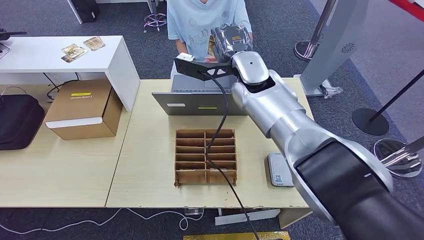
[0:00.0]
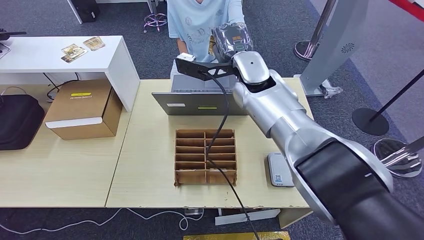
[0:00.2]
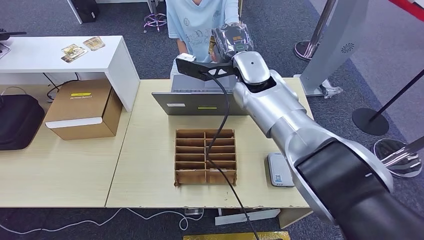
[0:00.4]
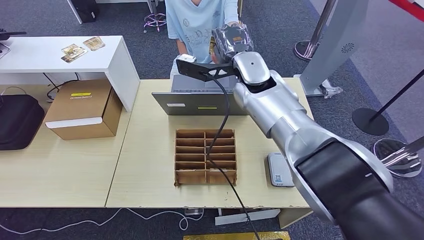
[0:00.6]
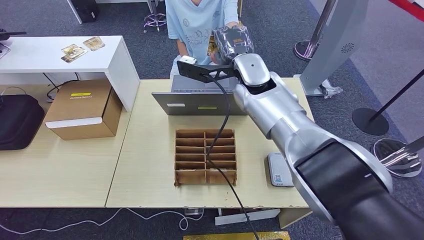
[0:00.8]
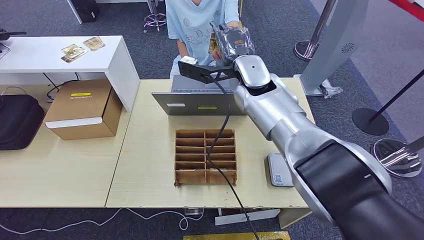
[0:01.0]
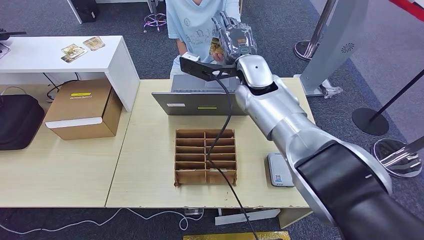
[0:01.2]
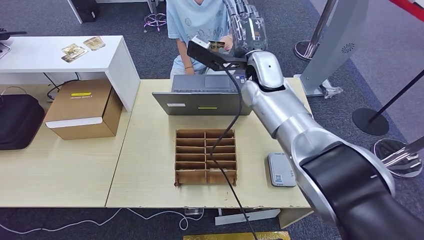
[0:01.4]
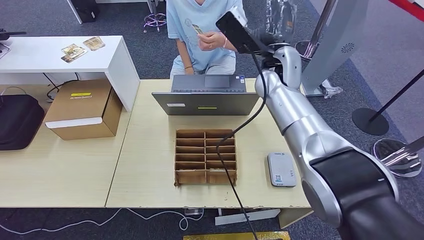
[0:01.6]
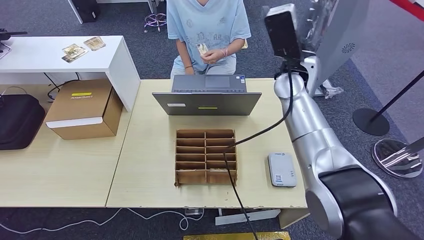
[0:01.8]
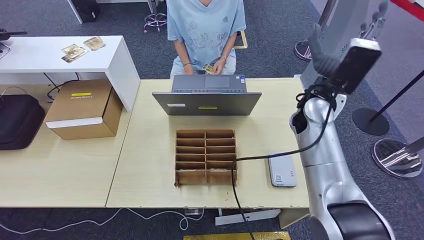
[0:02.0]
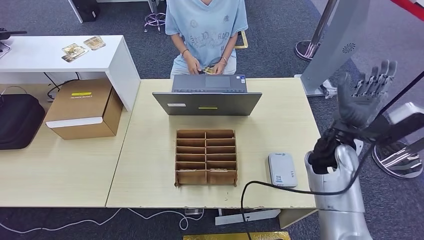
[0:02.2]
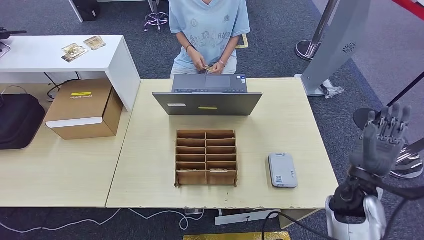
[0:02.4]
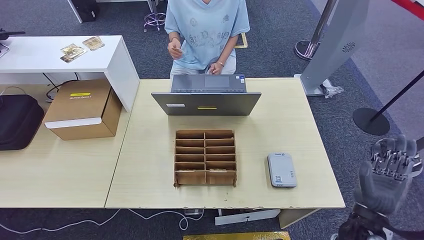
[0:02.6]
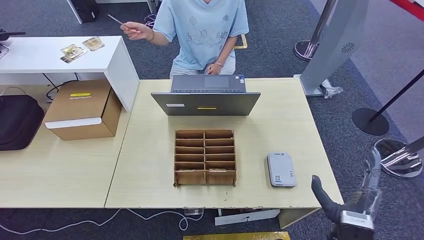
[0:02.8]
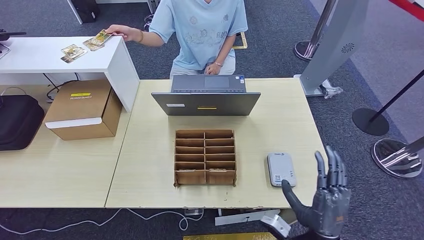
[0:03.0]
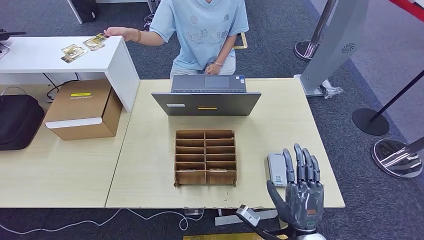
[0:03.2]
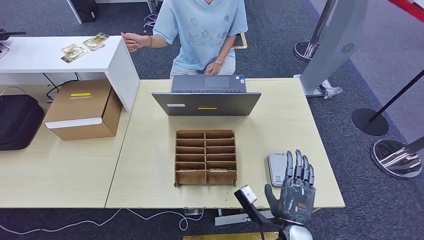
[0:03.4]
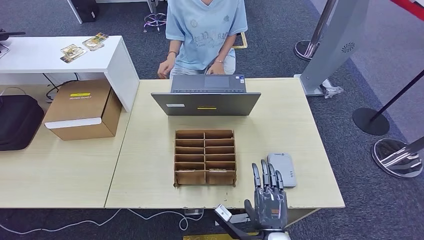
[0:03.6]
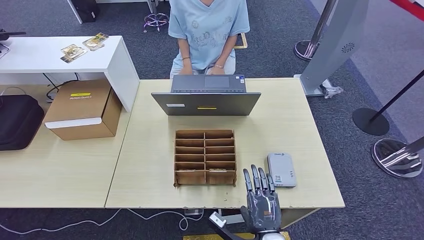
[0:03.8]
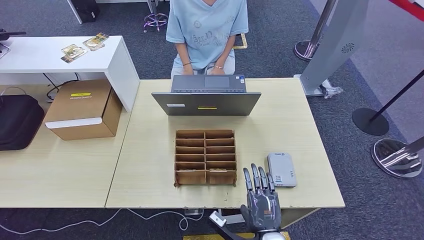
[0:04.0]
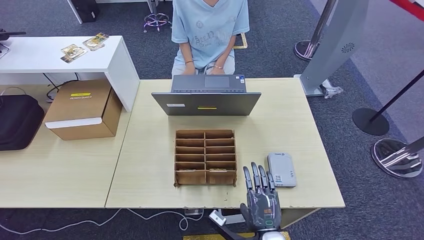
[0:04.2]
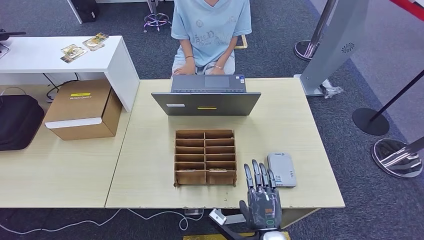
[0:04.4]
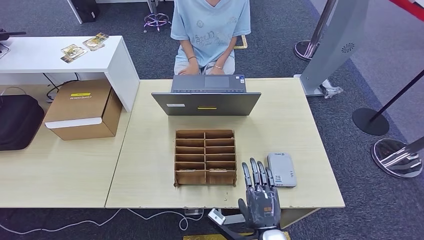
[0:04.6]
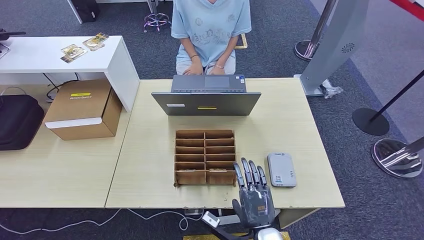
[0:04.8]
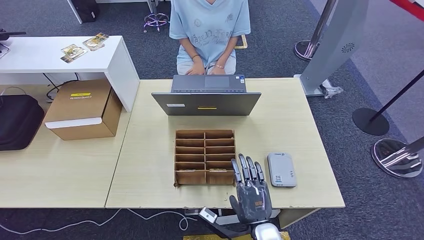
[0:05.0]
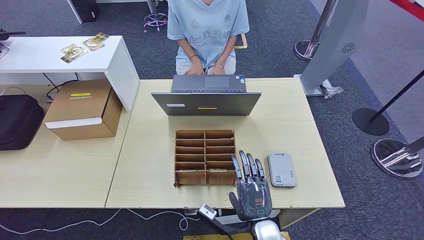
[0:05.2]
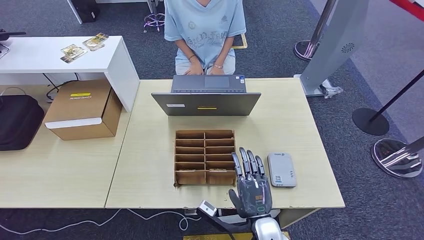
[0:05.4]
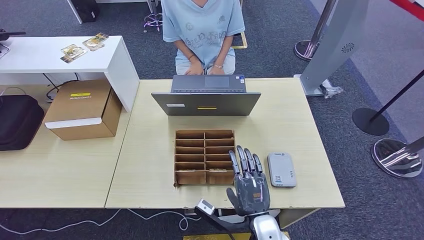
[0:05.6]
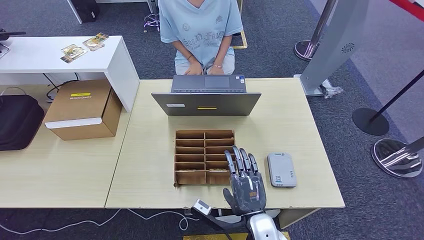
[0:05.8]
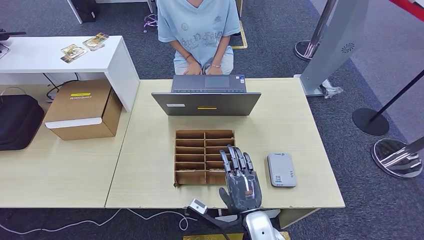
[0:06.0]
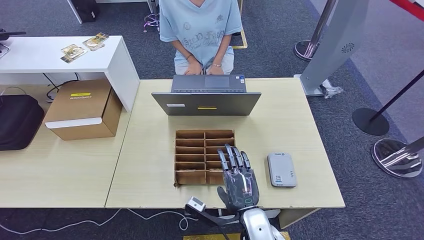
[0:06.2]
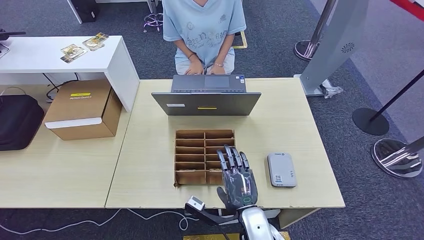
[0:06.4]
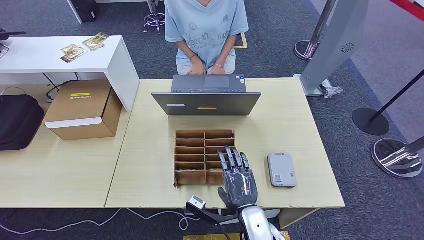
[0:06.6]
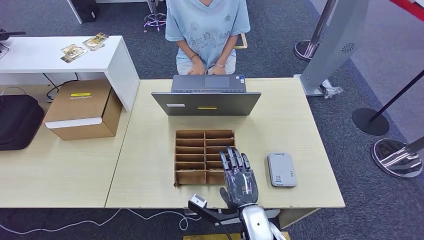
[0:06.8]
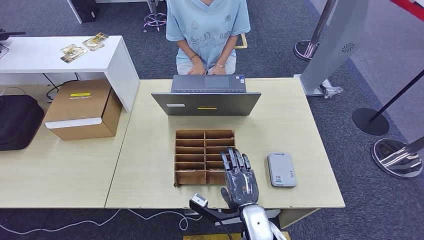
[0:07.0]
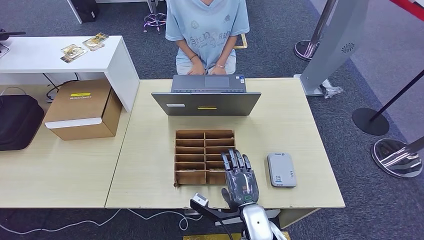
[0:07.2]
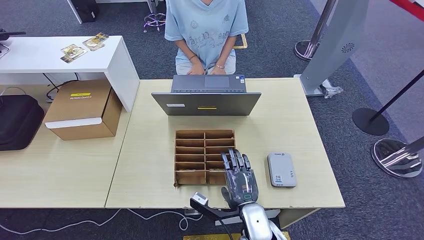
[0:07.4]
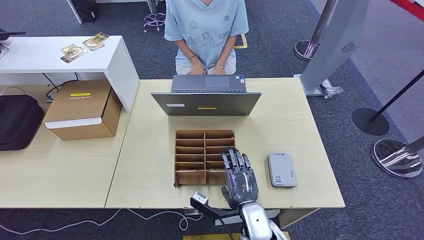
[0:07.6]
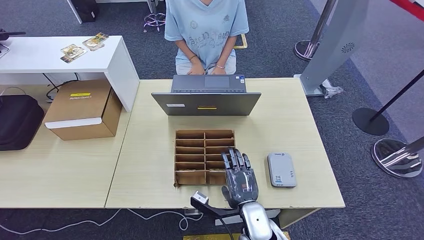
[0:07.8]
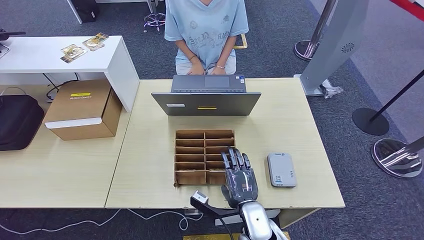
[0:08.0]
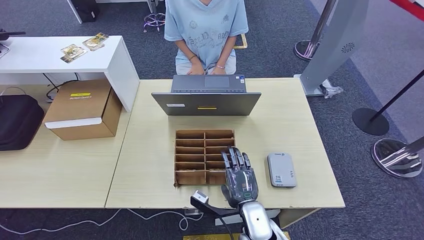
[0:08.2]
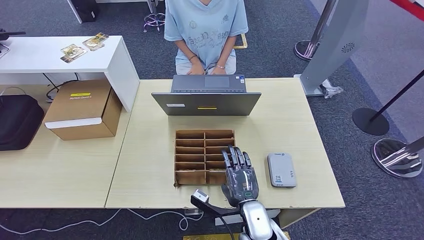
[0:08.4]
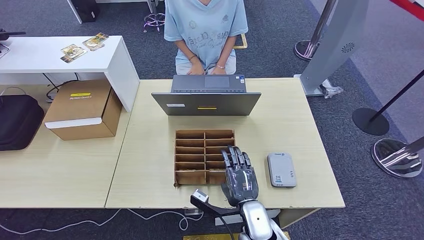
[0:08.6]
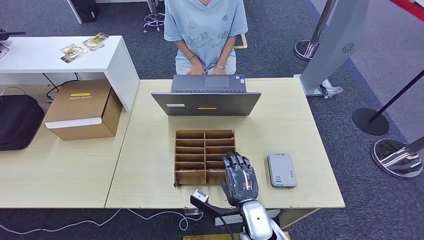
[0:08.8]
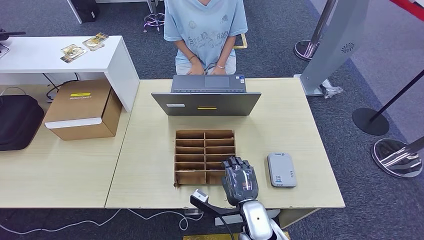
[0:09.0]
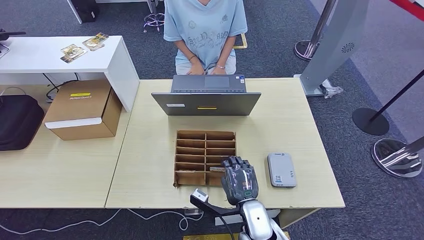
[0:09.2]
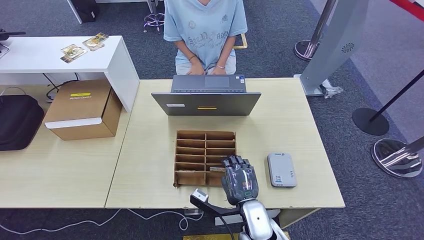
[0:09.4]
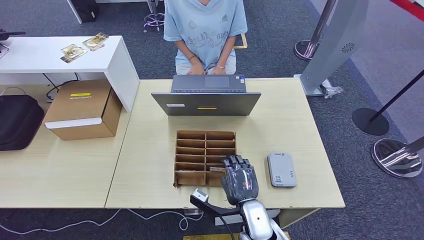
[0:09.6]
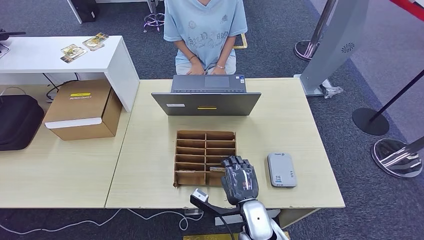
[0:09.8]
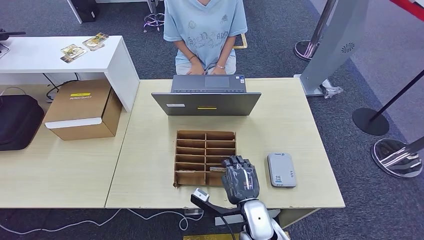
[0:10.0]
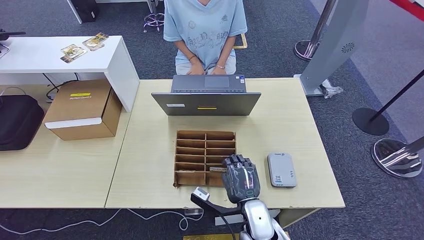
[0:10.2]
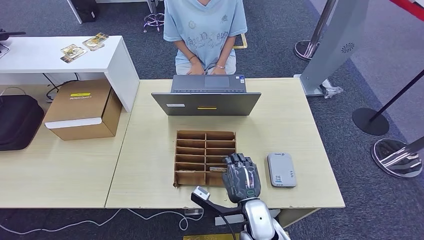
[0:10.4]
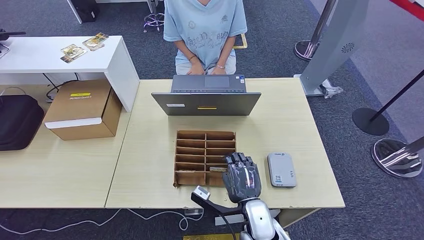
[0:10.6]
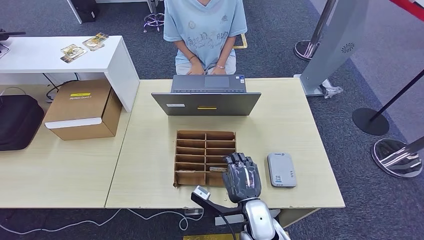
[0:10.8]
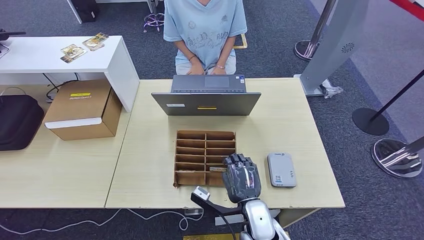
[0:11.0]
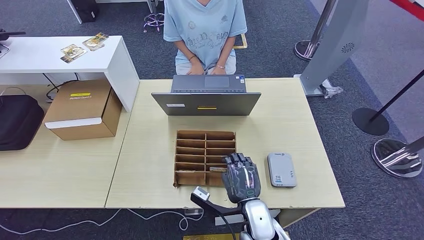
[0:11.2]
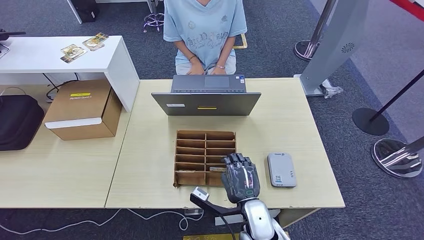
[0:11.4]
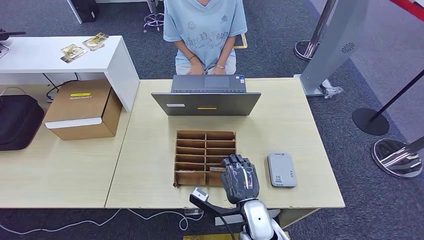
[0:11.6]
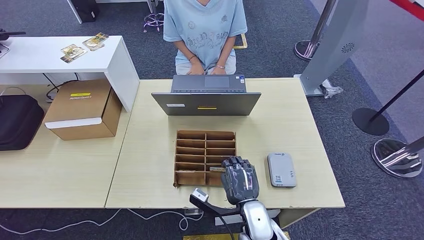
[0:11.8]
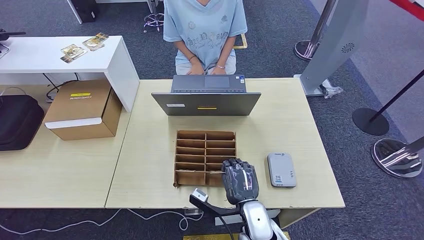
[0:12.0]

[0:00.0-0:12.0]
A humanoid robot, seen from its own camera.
Step, 0:00.0 to 0:03.0: Hand the ID card to the person.
0:00.0 to 0:01.6: The right hand heads to the right, covering approximately 5 cm.
0:01.6 to 0:03.0: The right hand shifts some 40 cm backward and downward.
0:03.0 to 0:04.4: The right hand moves to the left and downward, about 10 cm.
0:04.4 to 0:06.0: The right hand shifts by some 5 cm.
0:06.0 to 0:07.6: The hands stay close to where they were, moving slightly.
0:07.6 to 0:09.0: Both hands stay about where they are.
0:09.0 to 0:12.0: Both hands stay put.

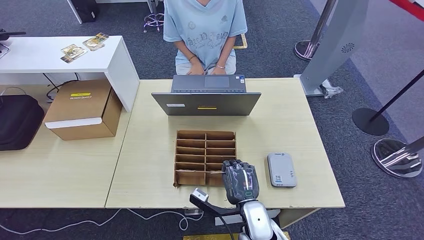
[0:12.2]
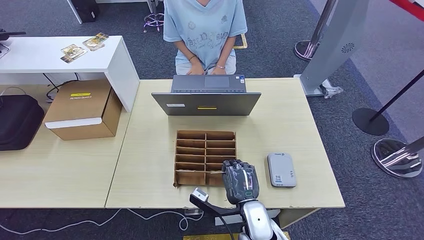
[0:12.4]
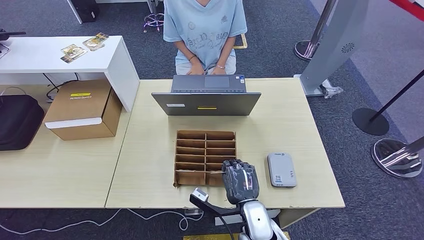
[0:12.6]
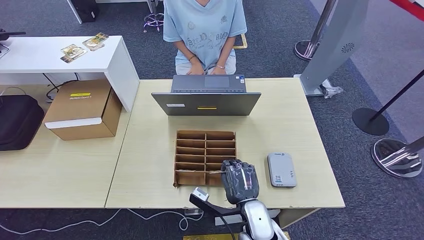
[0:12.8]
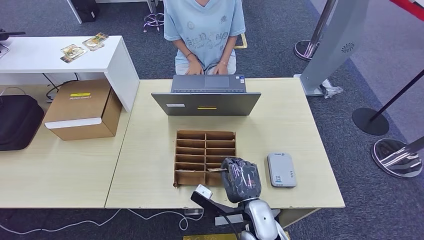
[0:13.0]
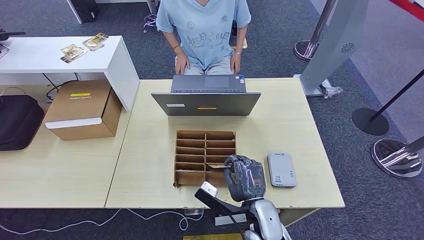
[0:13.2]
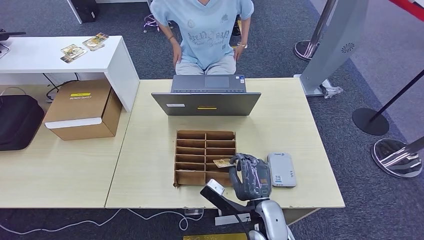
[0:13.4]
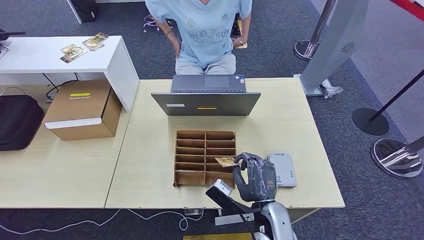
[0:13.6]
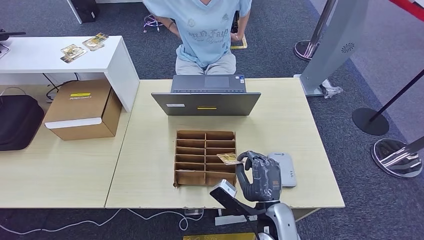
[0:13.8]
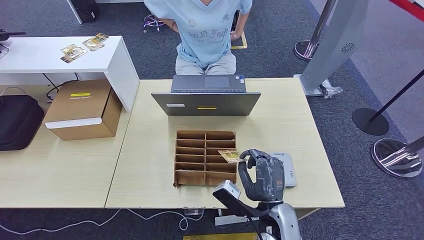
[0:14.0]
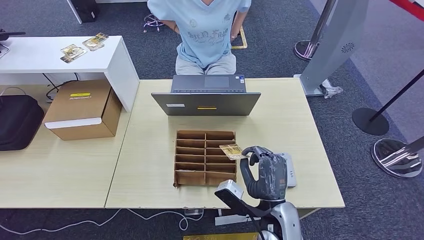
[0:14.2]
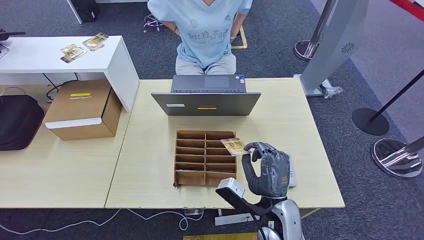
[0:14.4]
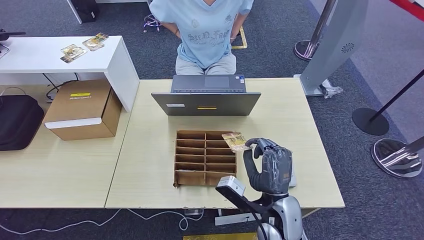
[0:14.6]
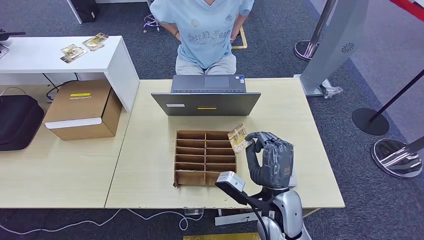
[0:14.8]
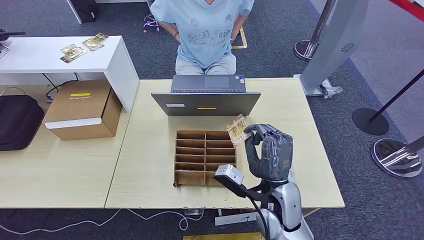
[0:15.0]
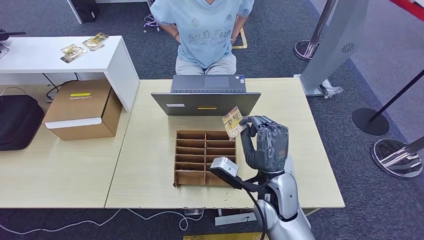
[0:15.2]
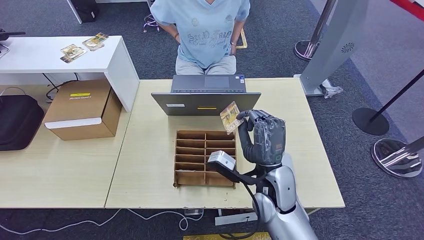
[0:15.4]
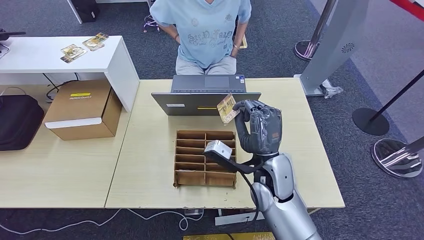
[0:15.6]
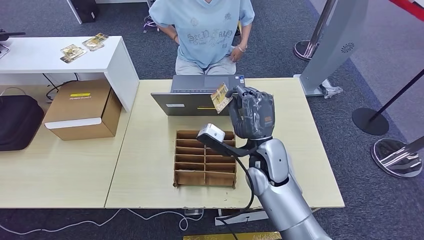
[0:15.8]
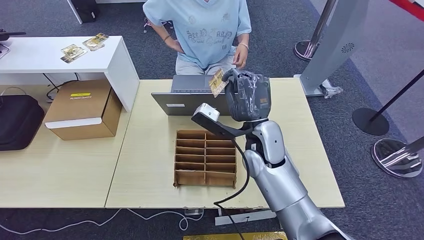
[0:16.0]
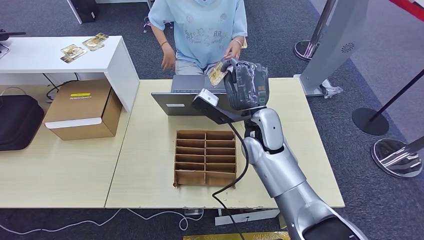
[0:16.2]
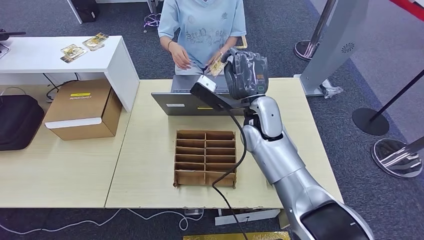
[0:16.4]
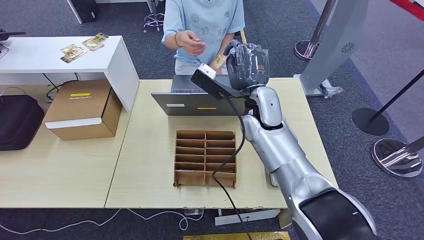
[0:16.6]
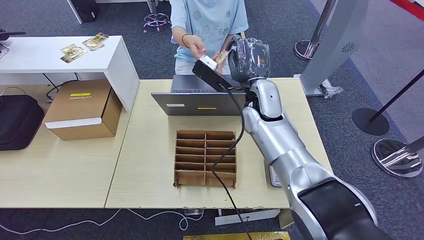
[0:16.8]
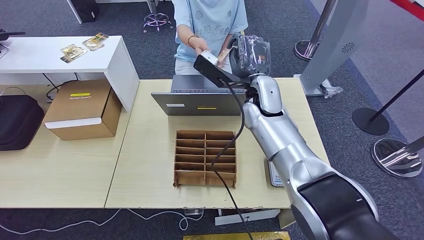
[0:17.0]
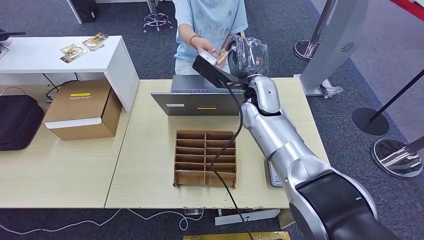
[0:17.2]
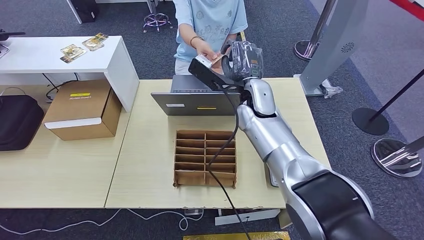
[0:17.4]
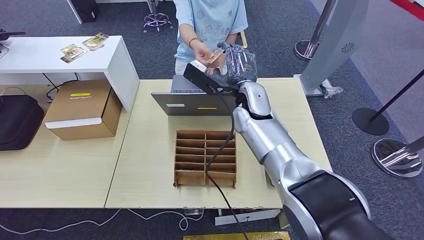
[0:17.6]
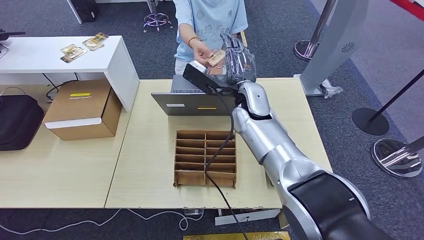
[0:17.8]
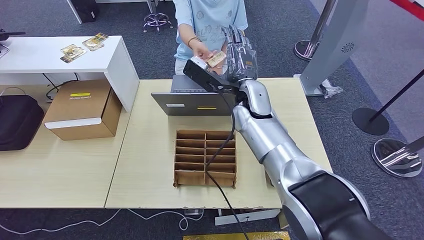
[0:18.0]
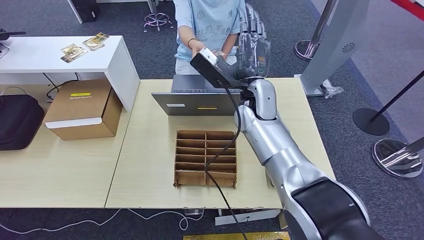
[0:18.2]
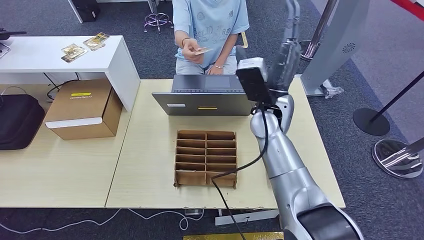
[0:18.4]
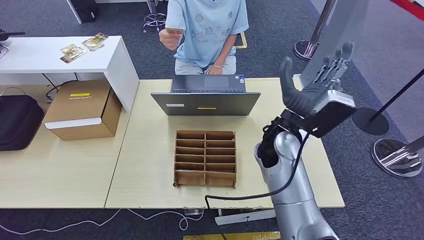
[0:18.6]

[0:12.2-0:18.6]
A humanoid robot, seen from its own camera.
Step, 0:12.2 to 0:14.2: Pick up the room key from the key card box.
0:12.2 to 0:13.8: The right hand ends up approximately 5 cm from where it was.
0:13.8 to 0:15.4: The right hand goes some 10 cm forward and upward.
0:15.4 to 0:17.0: The right hand shifts some 20 cm forward and upward.
0:17.0 to 0:18.6: The right hand goes some 10 cm backward.
